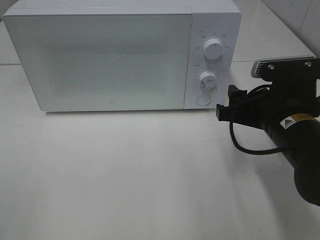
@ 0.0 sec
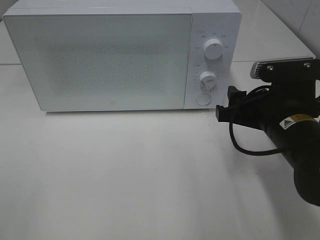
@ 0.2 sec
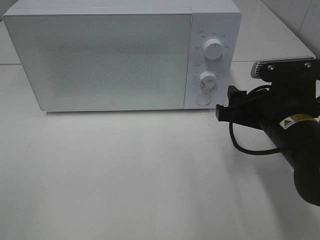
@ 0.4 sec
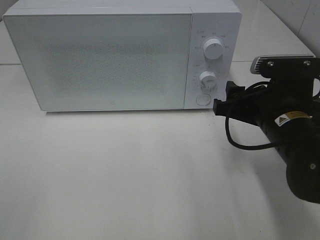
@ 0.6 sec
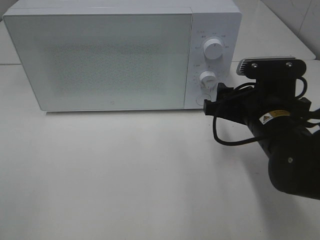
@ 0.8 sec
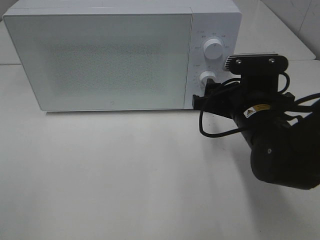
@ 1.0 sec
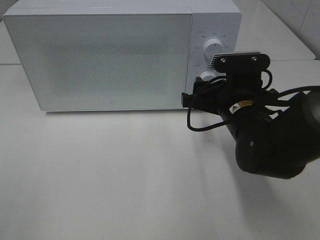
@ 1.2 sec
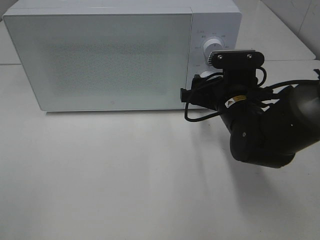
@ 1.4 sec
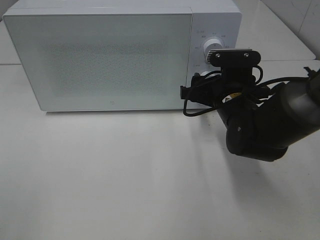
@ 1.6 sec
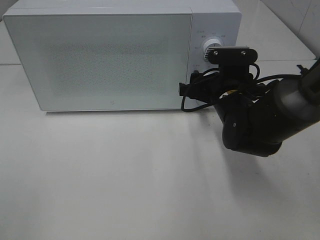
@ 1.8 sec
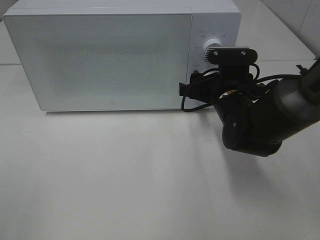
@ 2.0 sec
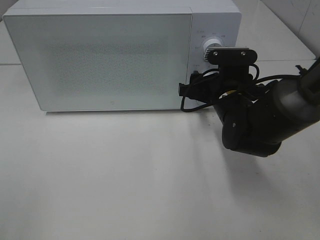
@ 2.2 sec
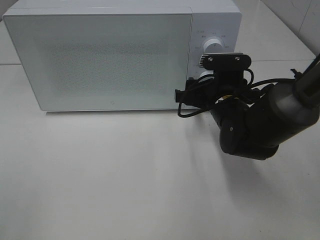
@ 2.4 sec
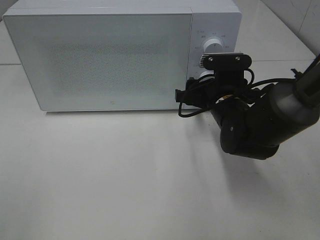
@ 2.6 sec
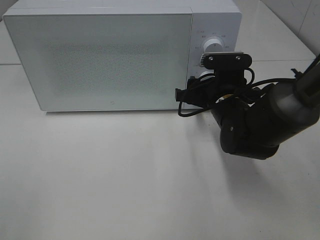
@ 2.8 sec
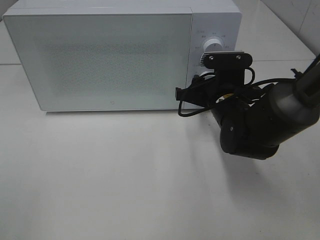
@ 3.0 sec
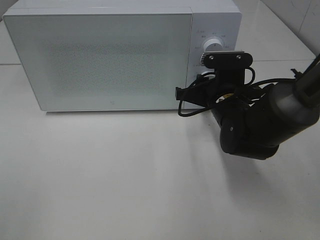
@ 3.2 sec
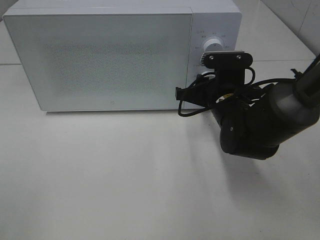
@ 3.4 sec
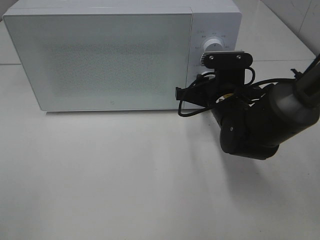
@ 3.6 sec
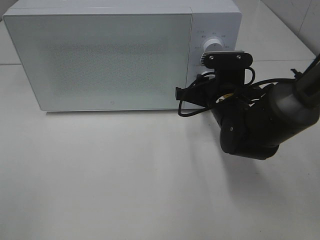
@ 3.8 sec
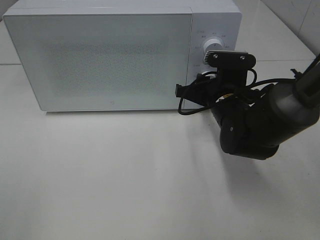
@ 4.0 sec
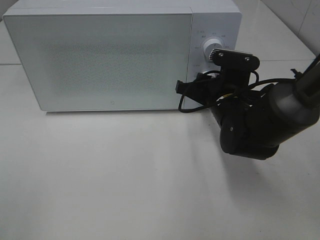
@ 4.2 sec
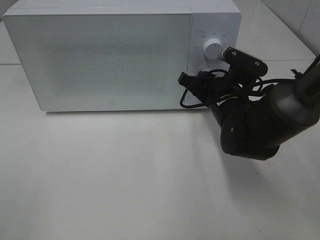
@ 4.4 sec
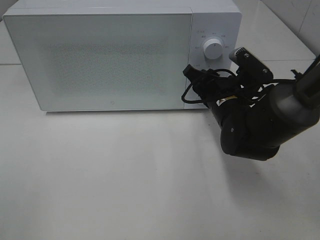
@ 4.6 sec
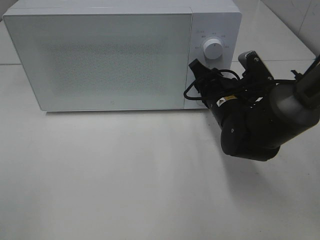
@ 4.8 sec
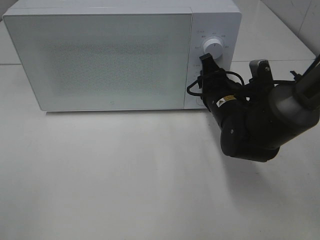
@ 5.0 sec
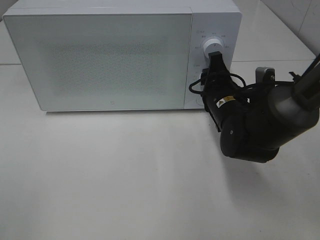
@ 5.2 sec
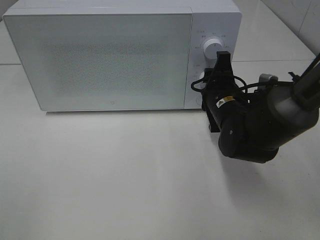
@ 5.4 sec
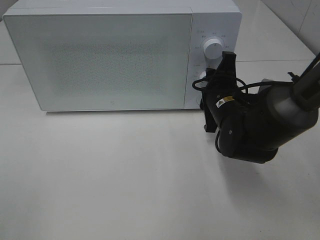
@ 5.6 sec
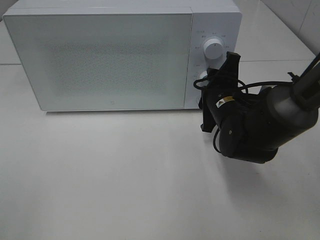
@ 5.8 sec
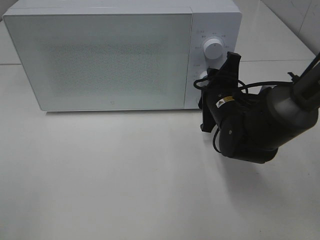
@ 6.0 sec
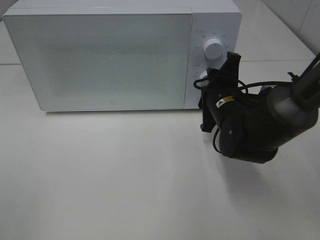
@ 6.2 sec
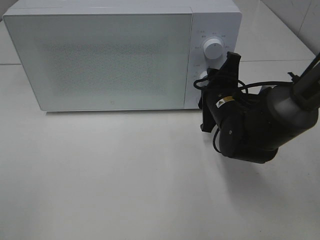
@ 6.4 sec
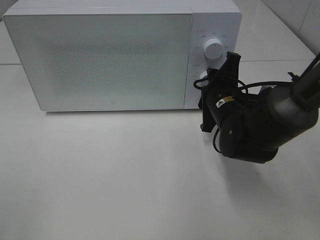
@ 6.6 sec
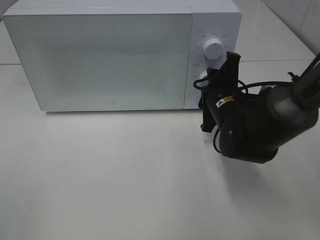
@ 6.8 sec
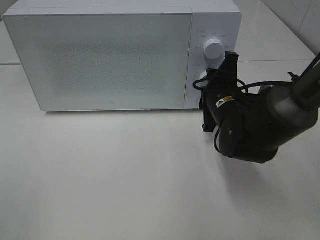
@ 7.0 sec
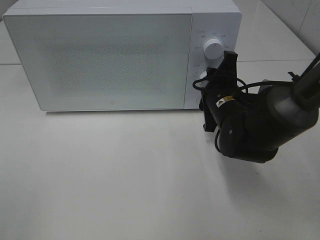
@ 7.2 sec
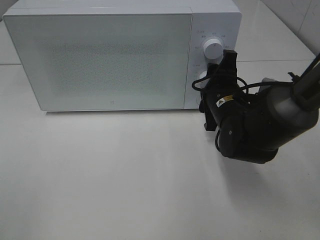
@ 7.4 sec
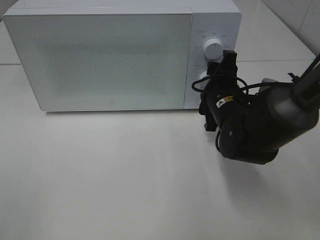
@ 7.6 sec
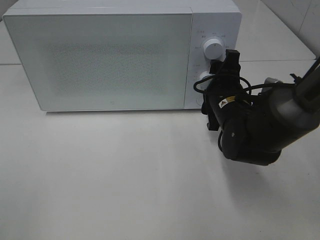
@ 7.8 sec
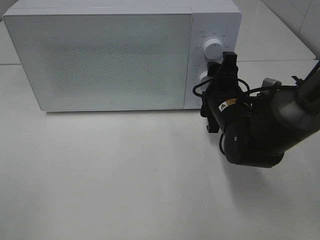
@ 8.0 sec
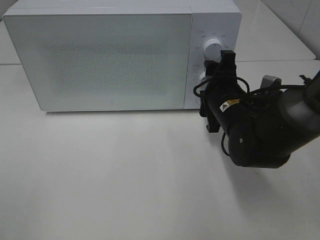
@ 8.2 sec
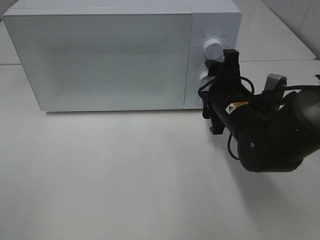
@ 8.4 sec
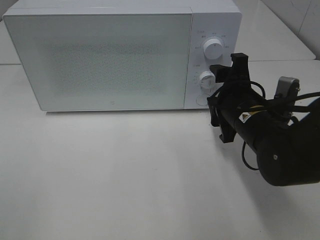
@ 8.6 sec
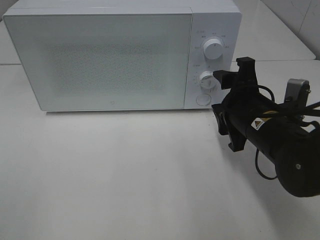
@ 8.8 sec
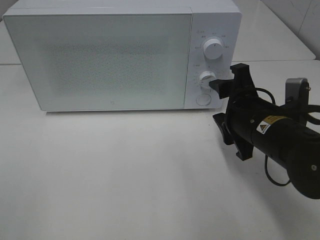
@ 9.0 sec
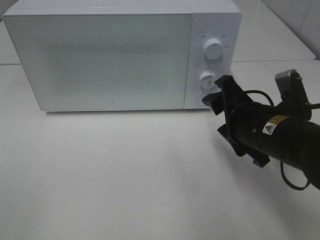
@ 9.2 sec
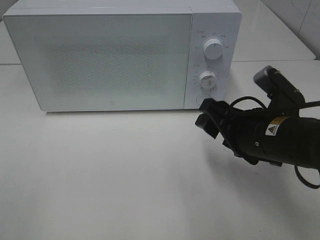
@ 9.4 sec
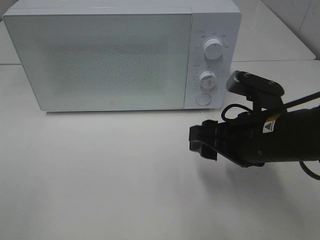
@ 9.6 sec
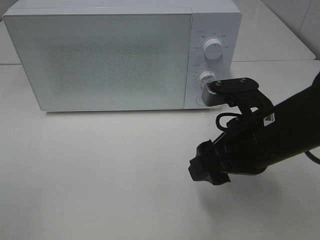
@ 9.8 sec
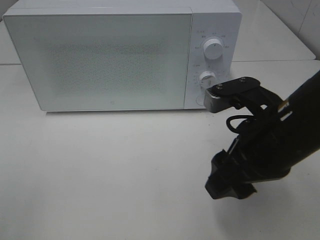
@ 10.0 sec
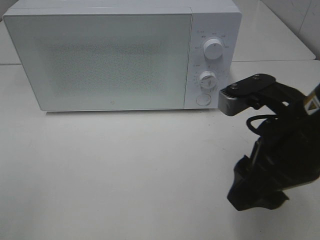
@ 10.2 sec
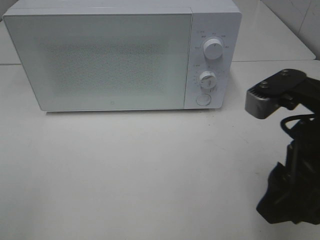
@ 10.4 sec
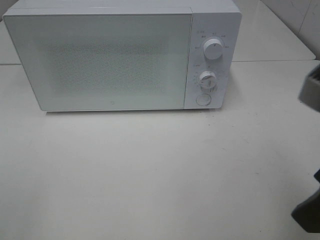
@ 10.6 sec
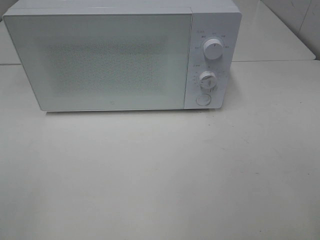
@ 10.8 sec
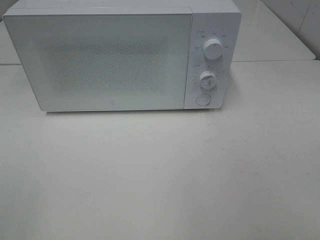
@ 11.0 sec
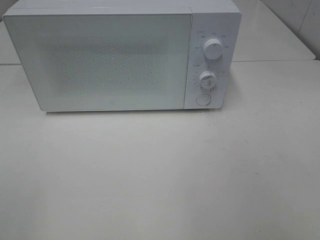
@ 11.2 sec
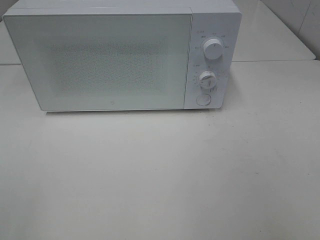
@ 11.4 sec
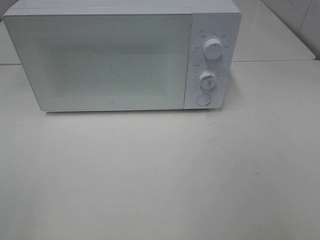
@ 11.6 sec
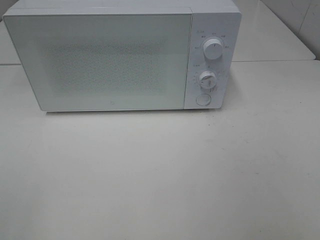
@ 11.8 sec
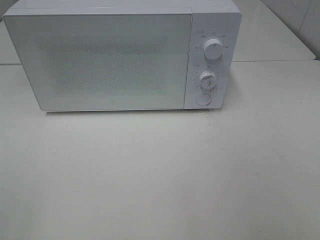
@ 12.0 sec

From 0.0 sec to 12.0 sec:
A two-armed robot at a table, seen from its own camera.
Task of the whole recording: Heat Sandwich.
Step, from 0.0 sec to 8.4 sec: Right hand: twist timer button.
From 0.0 sec to 1.6 sec: The right gripper heads forward, covering approximately 10 cm.
From 1.6 sec to 3.0 sec: The grippers move only a little.
From 6.0 sec to 7.6 sec: There are only small adjustments of the grippers.
From 7.6 sec to 9.0 sec: The right gripper shifts approximately 10 cm backward.
From 9.0 sec to 10.4 sec: The right gripper shifts about 15 cm upward and backward.
From 10.4 sec to 12.0 sec: The right gripper is displaced backward and to the right by roughly 20 cm.

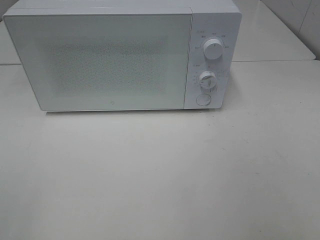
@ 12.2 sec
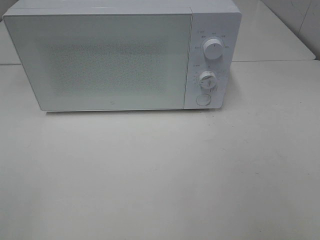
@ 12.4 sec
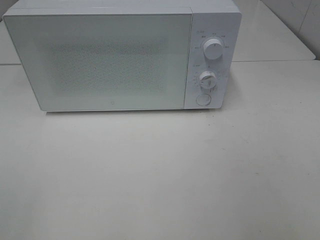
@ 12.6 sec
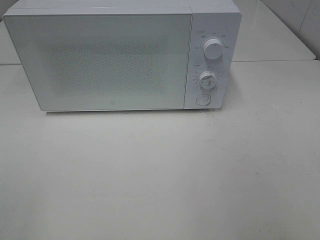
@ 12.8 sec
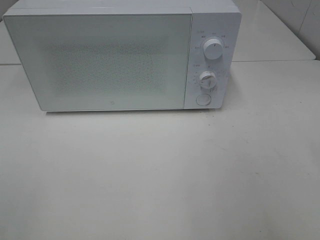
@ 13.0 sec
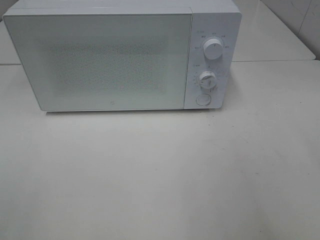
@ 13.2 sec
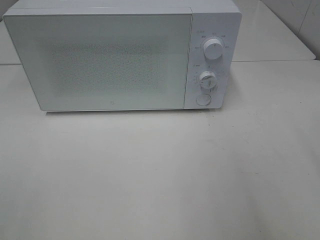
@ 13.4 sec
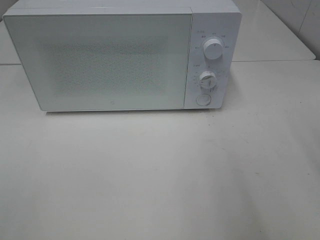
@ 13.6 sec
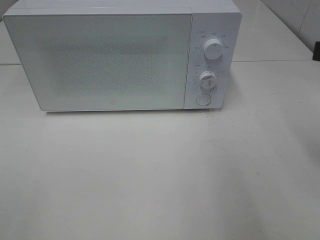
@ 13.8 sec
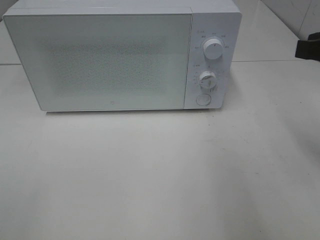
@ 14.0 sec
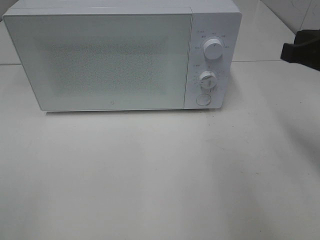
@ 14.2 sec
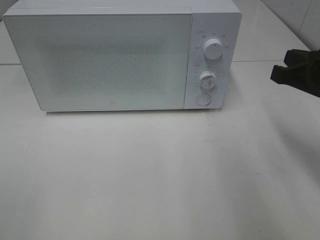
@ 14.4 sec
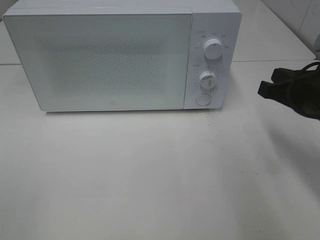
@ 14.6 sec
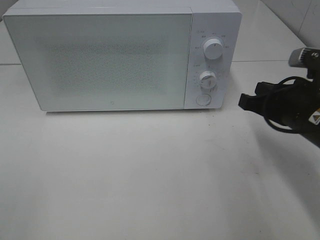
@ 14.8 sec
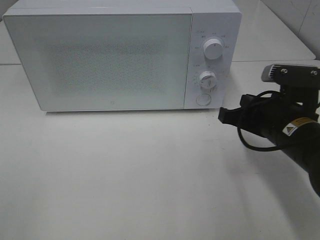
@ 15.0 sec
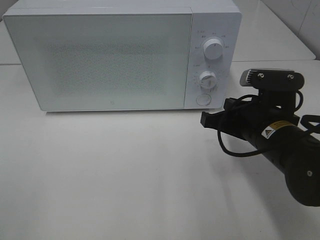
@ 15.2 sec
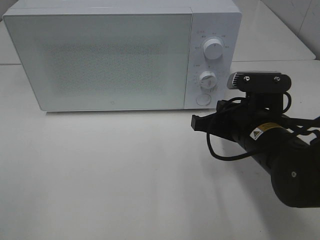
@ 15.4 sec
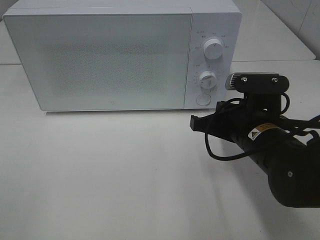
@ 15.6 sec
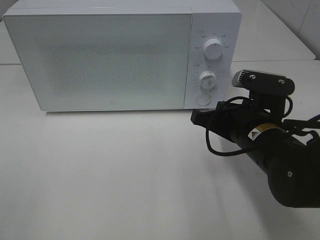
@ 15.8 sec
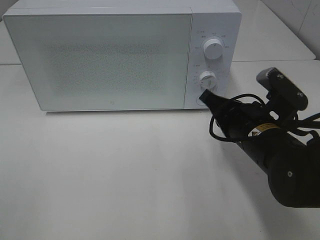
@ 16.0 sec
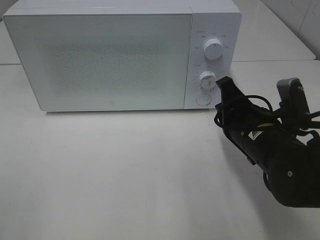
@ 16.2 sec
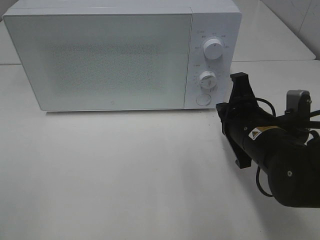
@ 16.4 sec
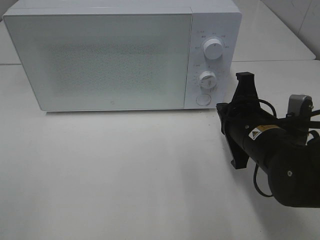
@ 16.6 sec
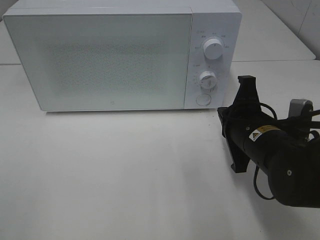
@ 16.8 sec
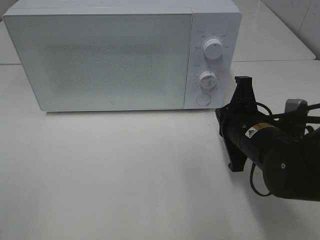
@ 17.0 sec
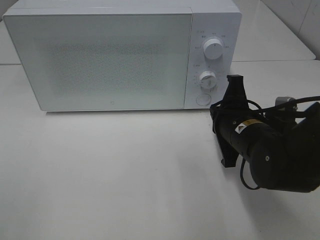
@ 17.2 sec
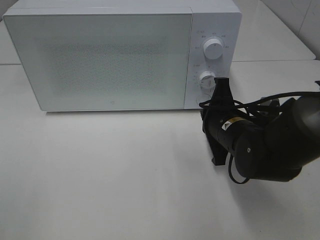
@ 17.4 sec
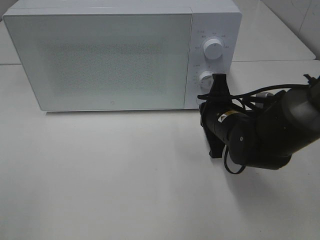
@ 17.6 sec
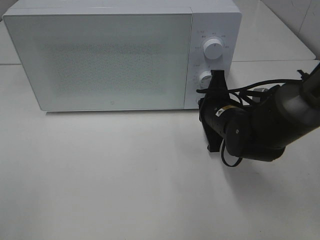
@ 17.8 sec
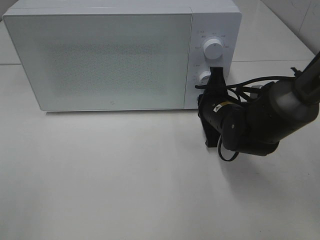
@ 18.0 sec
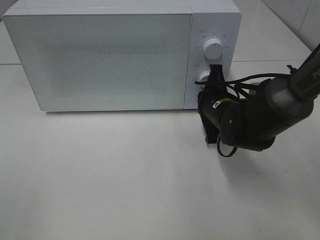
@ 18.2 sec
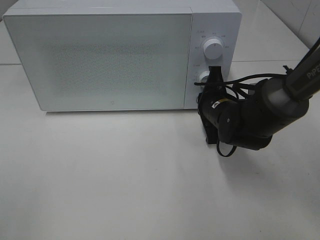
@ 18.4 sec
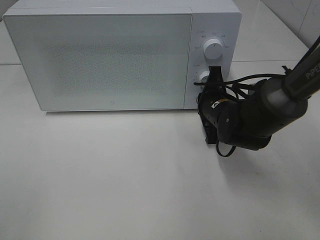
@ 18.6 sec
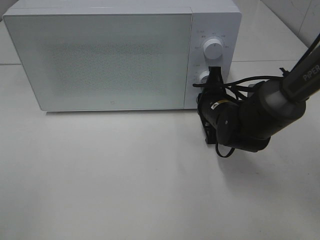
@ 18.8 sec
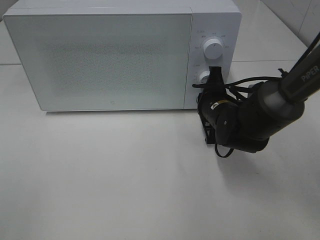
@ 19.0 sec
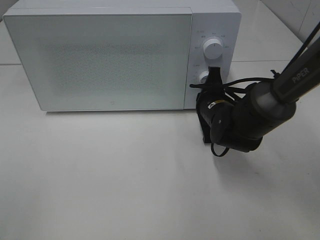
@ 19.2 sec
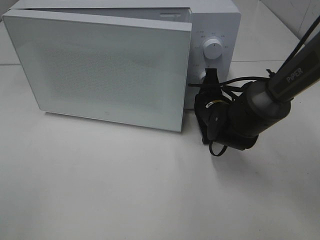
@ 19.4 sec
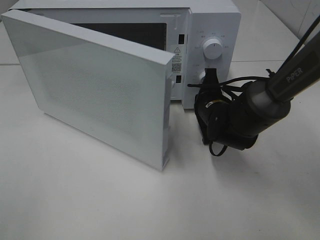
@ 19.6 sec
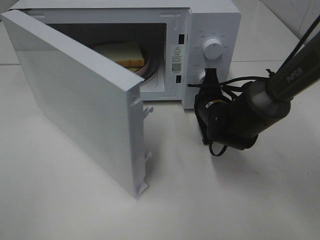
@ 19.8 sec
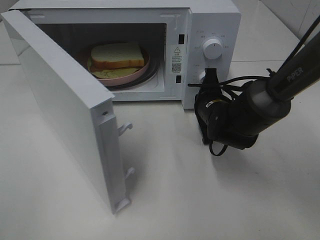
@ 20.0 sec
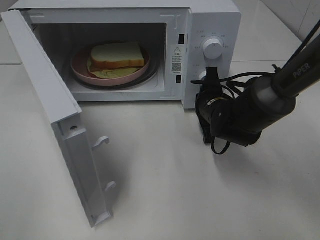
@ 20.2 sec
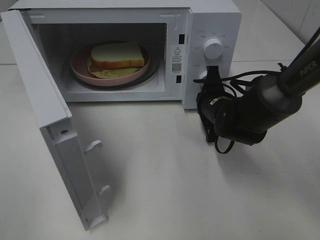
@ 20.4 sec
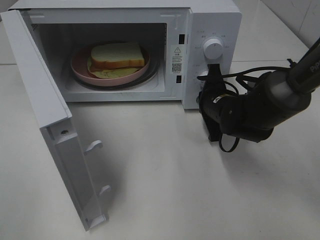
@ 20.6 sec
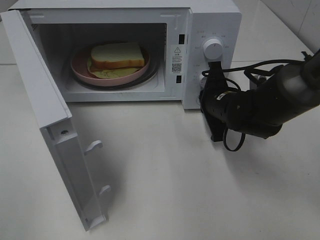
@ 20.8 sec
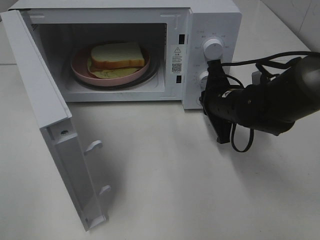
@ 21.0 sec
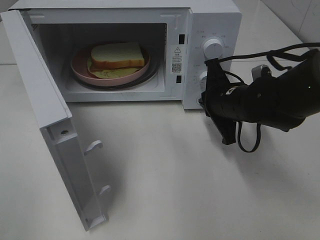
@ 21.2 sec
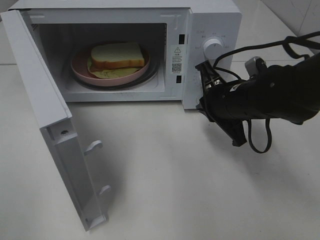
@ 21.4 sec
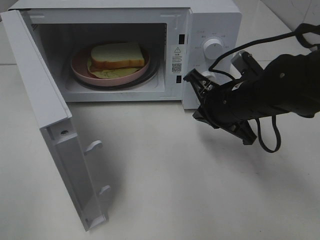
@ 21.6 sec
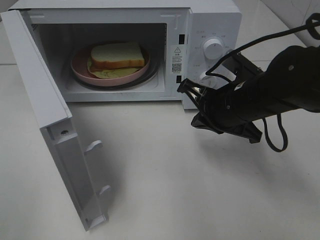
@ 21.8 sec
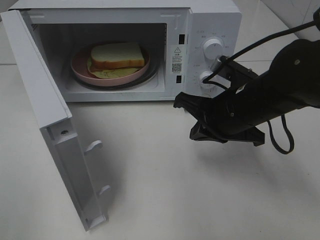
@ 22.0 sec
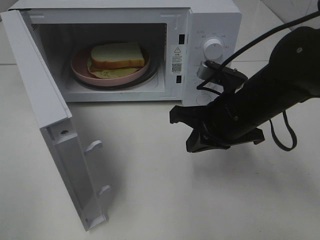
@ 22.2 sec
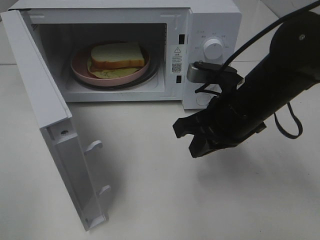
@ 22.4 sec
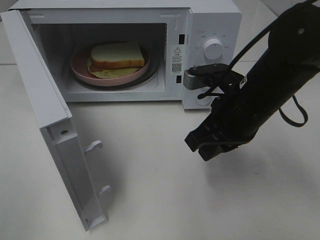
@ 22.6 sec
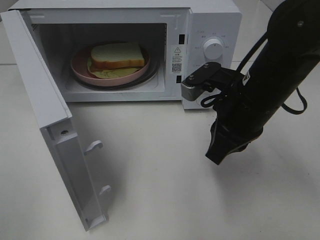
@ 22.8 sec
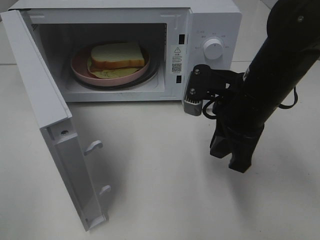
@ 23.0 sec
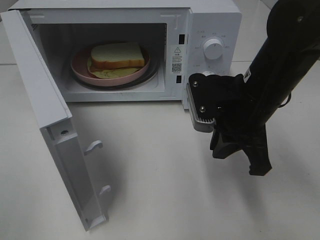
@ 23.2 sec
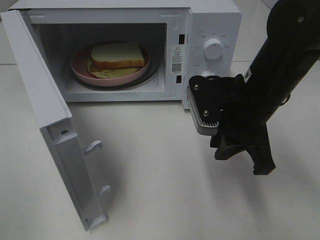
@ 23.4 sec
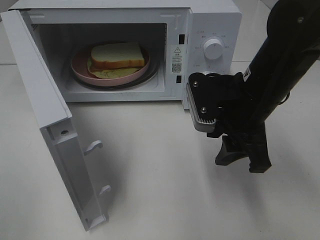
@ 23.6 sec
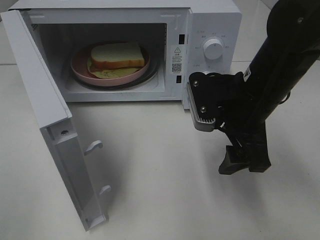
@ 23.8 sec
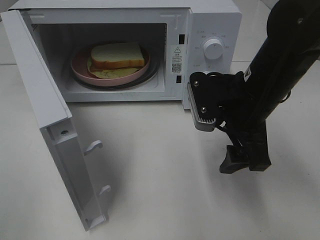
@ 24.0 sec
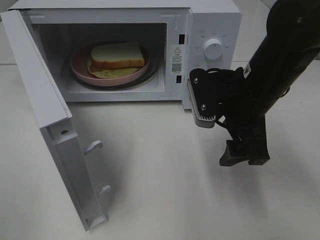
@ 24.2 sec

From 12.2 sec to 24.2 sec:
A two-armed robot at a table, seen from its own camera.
Task of the whole recording: Heat Sandwich.
Step, from 12.2 sec to 21.2 sec: Right hand: press the switch.
From 13.8 sec to 15.2 sec: The right gripper shifts about 20 cm downward and to the left.
From 16.6 sec to 18.2 sec: The right gripper moves forward, roughly 10 cm.
From 19.8 sec to 21.2 sec: The right gripper moves upward, roughly 5 cm.
From 21.2 sec to 22.6 sec: The right gripper travels backward and upward by about 10 cm.
From 22.6 sec to 24.2 sec: The right gripper opens its fingers.
